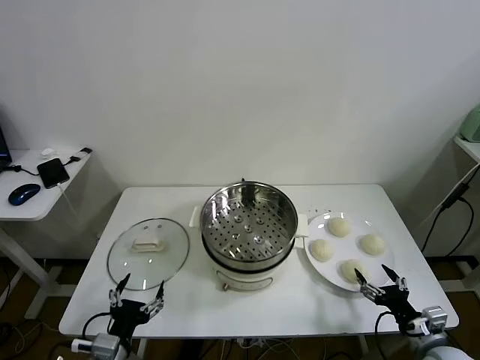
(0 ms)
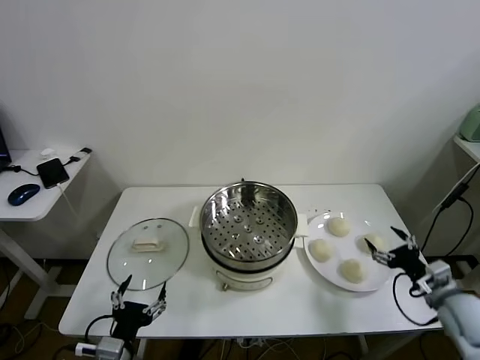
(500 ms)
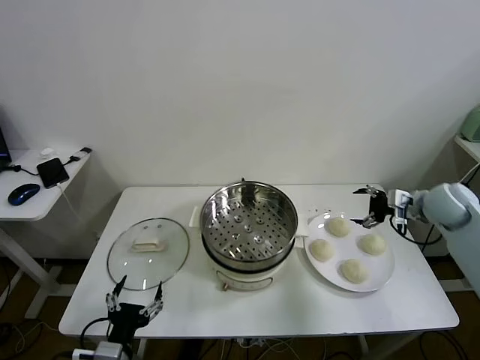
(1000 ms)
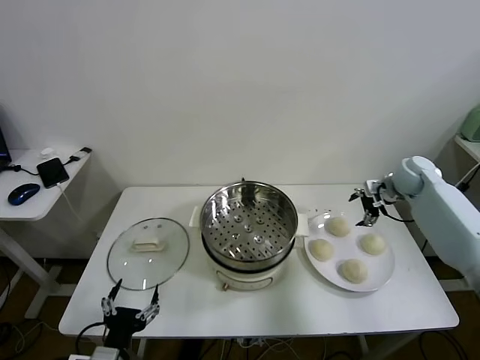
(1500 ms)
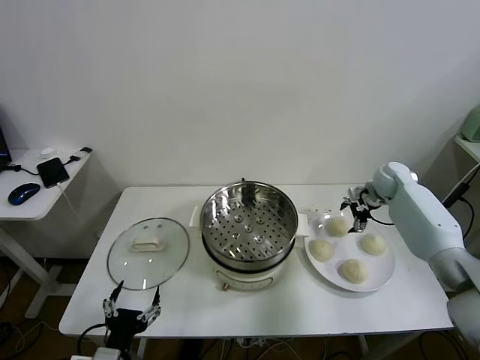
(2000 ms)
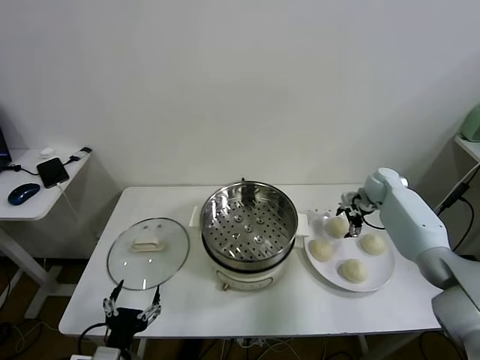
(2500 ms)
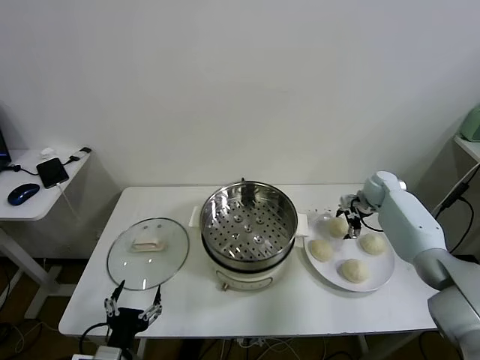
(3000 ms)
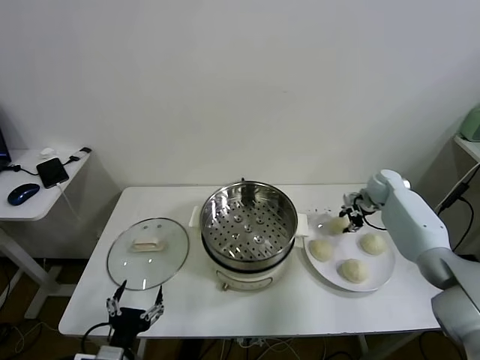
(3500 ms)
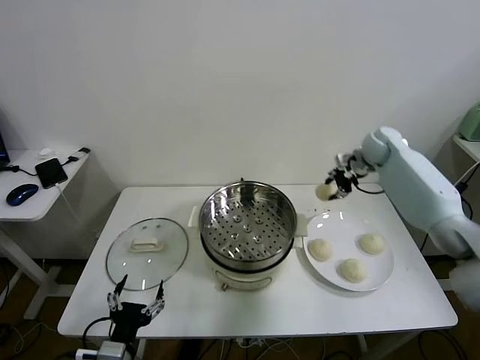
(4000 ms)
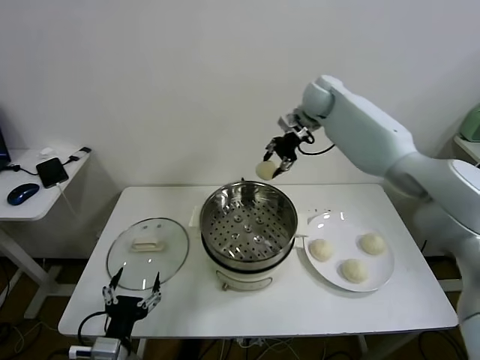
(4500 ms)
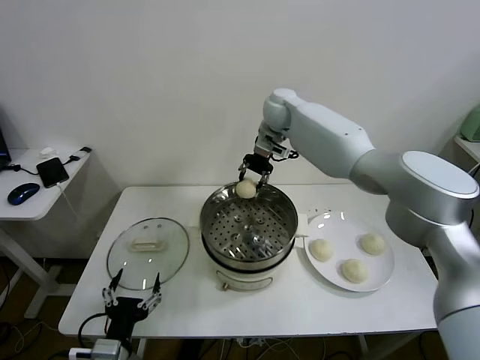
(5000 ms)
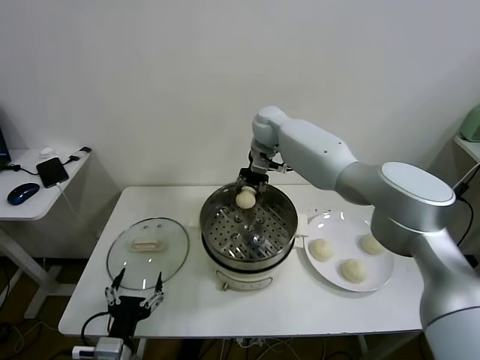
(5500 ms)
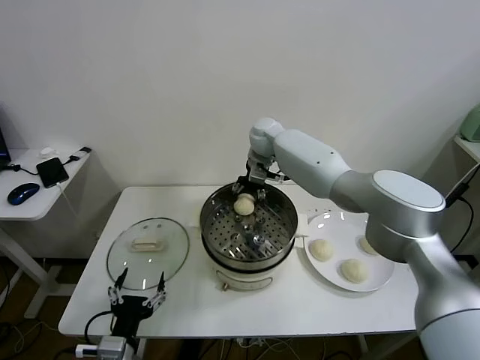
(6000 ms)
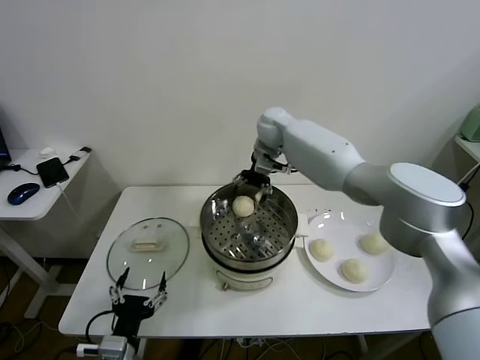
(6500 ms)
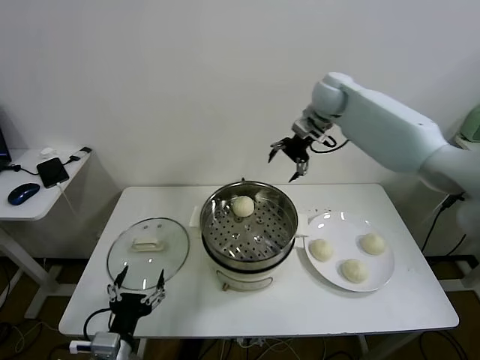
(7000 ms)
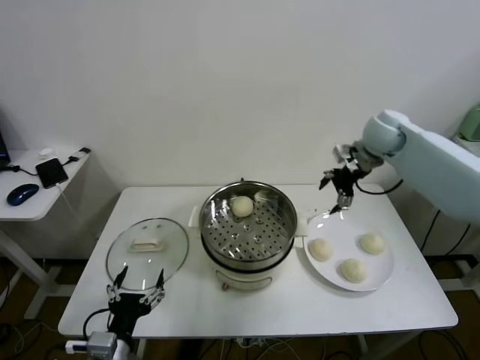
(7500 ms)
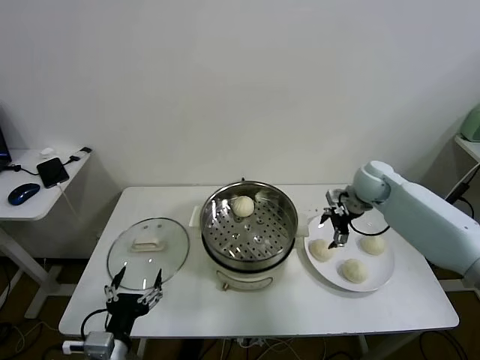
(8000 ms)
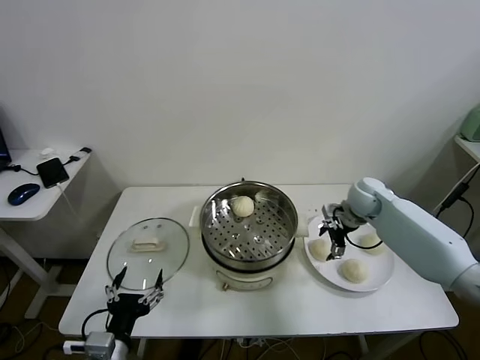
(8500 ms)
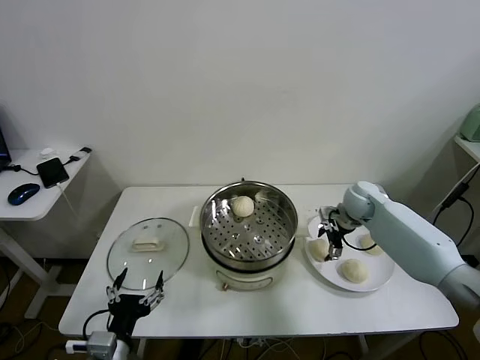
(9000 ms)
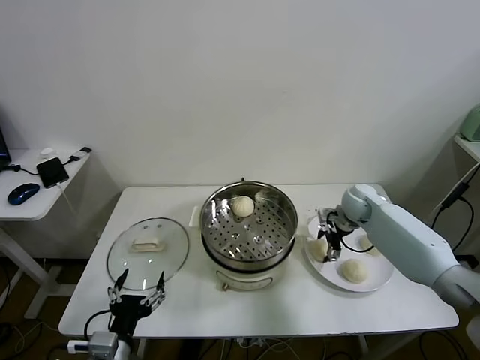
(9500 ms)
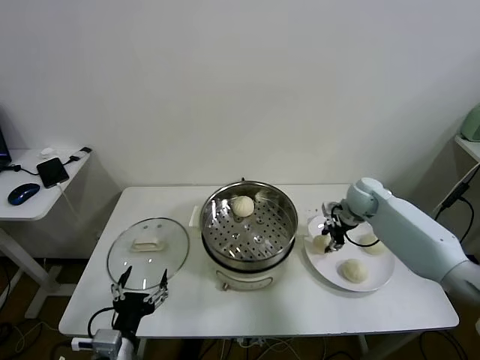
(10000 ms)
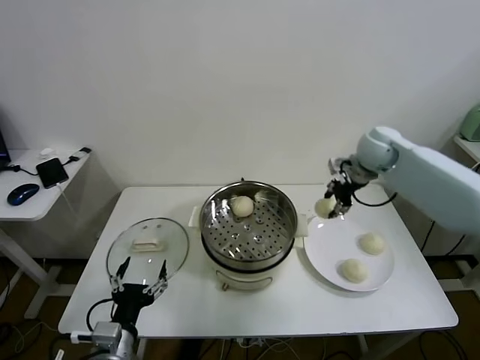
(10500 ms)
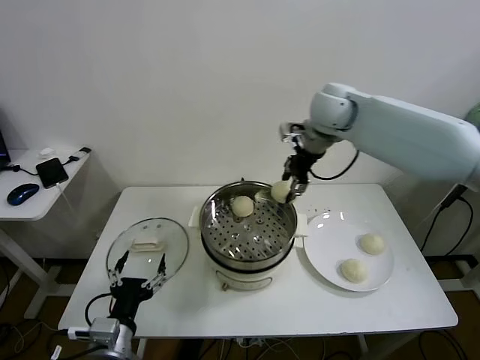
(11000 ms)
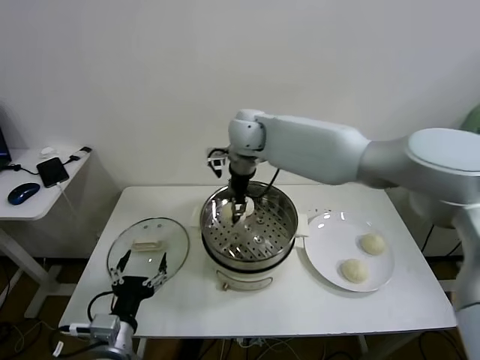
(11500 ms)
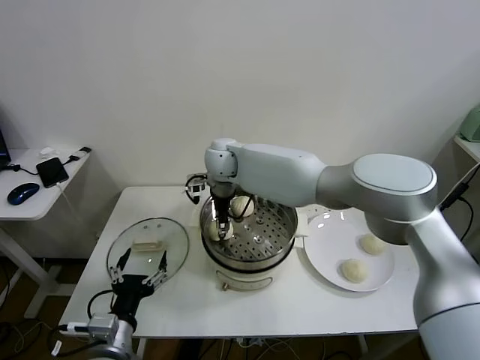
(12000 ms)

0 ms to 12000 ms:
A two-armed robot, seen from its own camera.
Task of the whole recording: take steamed baozi put them in steamer.
Step, 0 ms to 3000 ms: Grasp the baozi in the plate with right gripper.
Step, 3500 ms to 6000 ms: Place the baozi on the steamer with right gripper.
Step, 6500 ms to 9500 ms: Grasp the baozi in the plate with right gripper.
2000 ms to 4000 ms: The right gripper is displaced upward and to the left by roughly 15 cm, and closes.
4000 ms to 6000 ms: The right gripper heads to the left, covering some 25 cm, and opens.
6000 ms to 8000 ms: The right gripper is displaced to the right and backward by approximately 30 cm, and opens.
8000 ms to 10000 ms: The right gripper closes.
10000 ms to 12000 ms: The right gripper goes about 35 cm to the left.

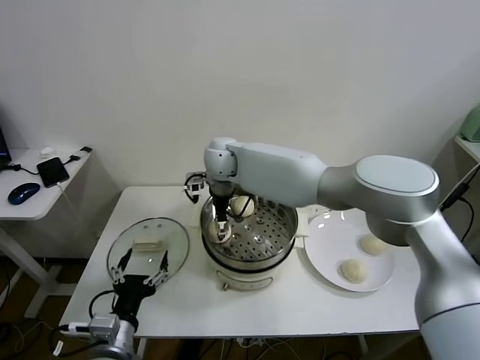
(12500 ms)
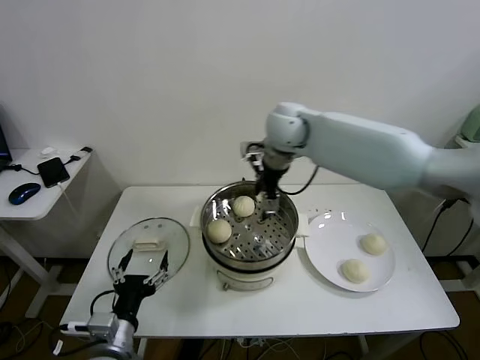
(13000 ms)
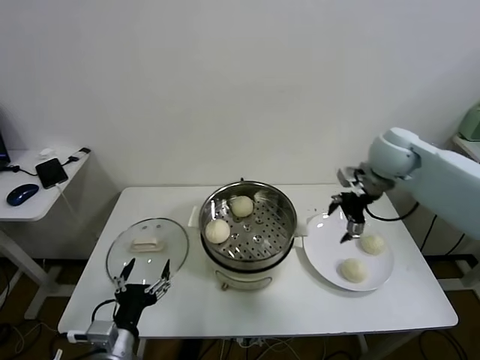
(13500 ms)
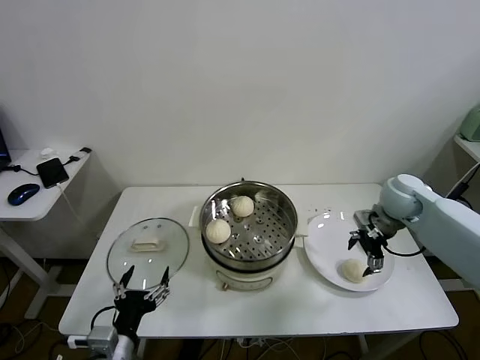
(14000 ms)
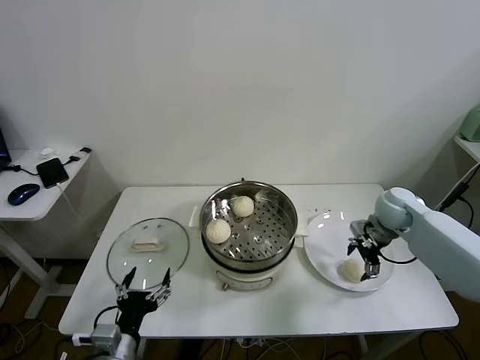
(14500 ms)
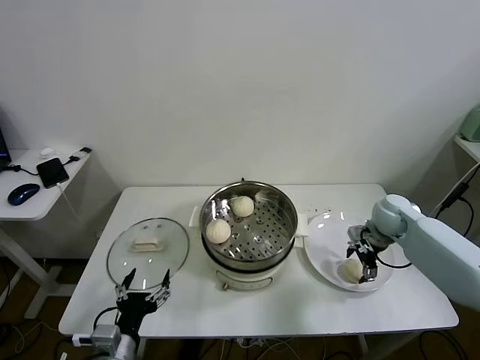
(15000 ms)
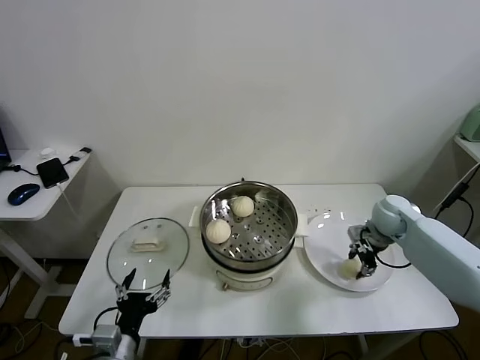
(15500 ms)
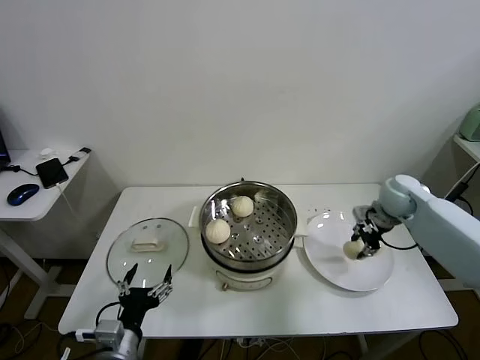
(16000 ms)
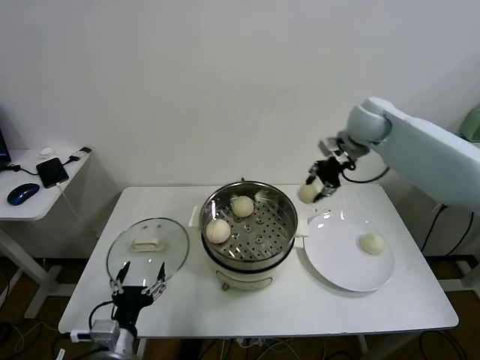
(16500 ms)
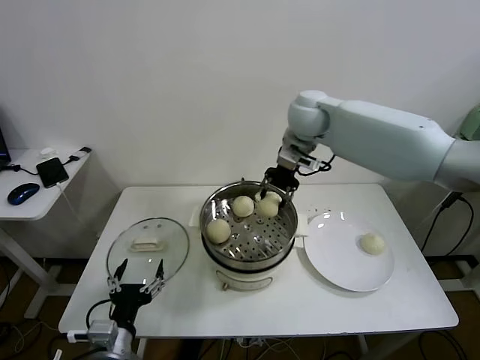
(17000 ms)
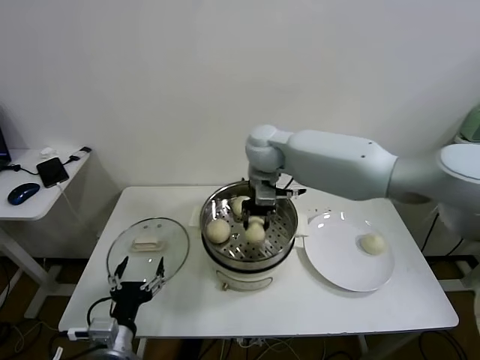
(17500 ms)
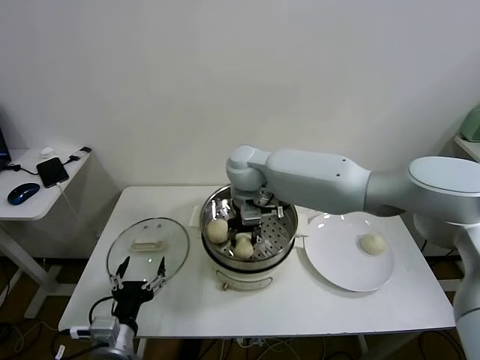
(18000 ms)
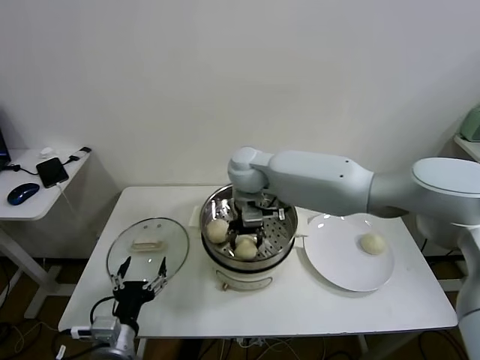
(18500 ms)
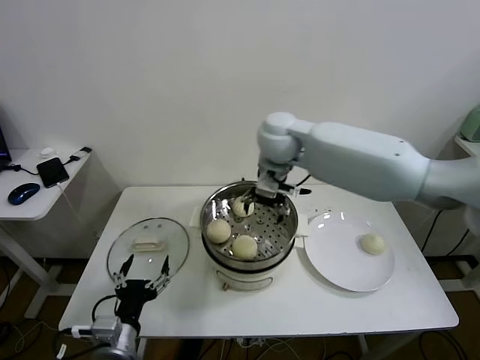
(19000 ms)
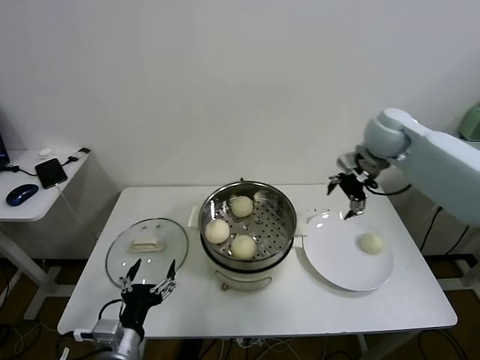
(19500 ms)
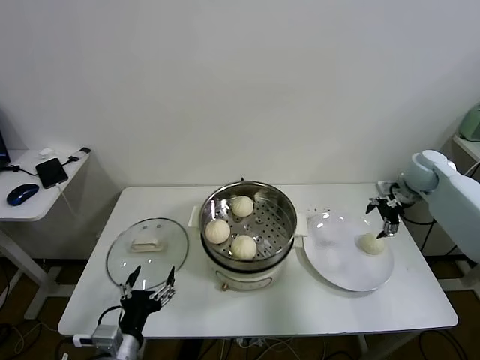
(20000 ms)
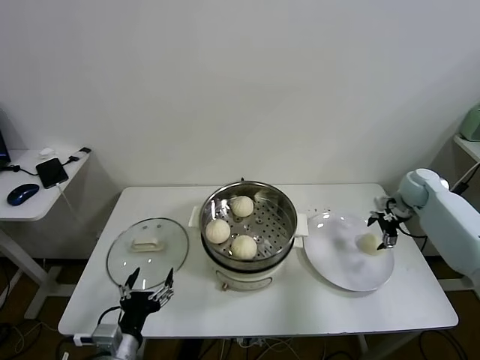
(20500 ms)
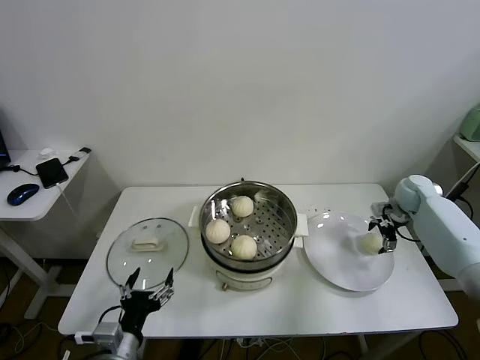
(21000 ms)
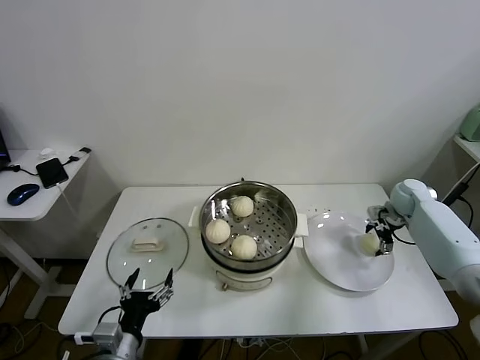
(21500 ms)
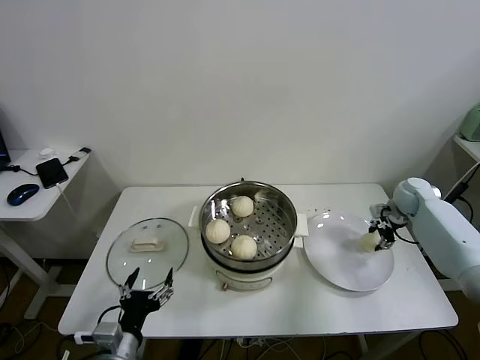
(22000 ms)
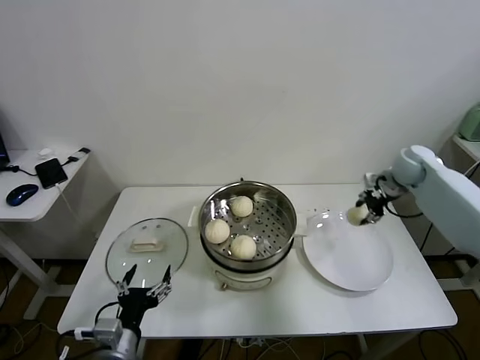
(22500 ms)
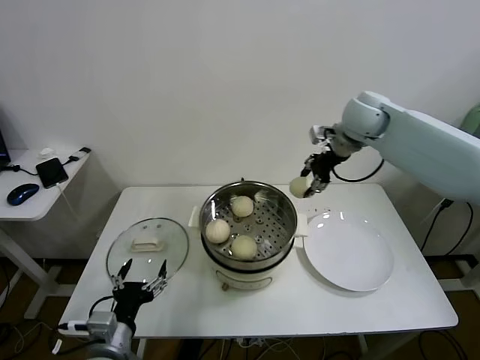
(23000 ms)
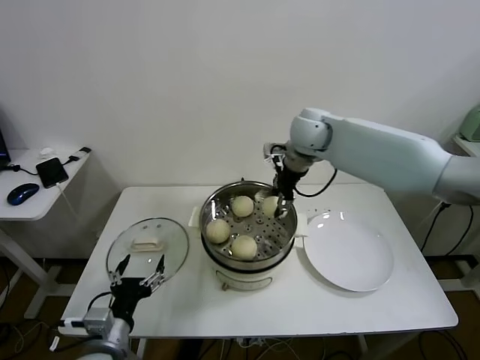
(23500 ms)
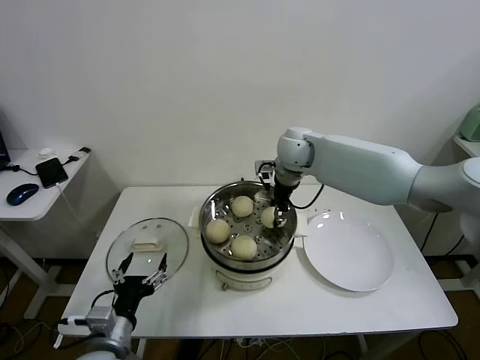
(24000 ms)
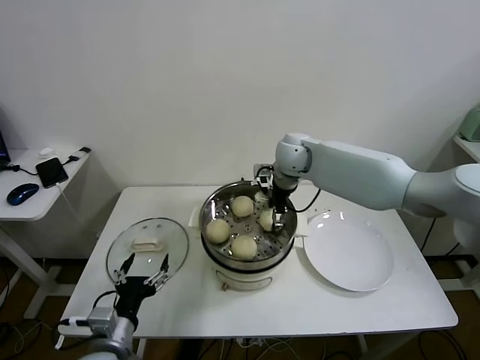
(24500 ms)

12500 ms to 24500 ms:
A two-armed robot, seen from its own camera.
Task of the whole recording: take steamed baozi put them in steamer.
Step, 12500 ms to 15500 ms: Grasp the baozi in the plate with right gripper.
Step, 16000 ms to 18500 ms: Place the baozi on the steamer with right gripper.
Step, 19000 ms to 21500 ms: Grasp the baozi in the plate with right gripper.
12500 ms to 14500 ms: The right gripper travels to the right by approximately 40 cm.
14500 ms to 16500 ms: The right gripper goes some 25 cm upward, to the left and forward, and closes.
16500 ms to 18500 ms: The right gripper moves to the left, some 25 cm, and opens its fingers.
18500 ms to 20500 ms: The right gripper is displaced to the right by approximately 50 cm, and opens up.
20500 ms to 22500 ms: The right gripper heads upward, covering some 5 cm, and closes up.
22500 ms to 24500 ms: The right gripper moves to the left, some 30 cm, and opens its fingers.

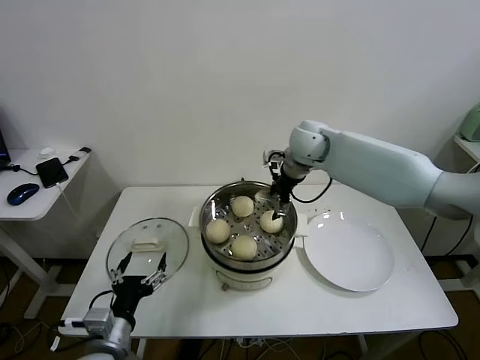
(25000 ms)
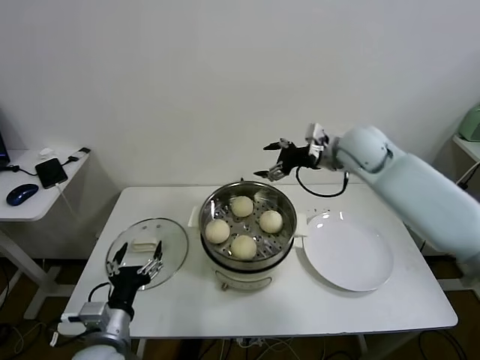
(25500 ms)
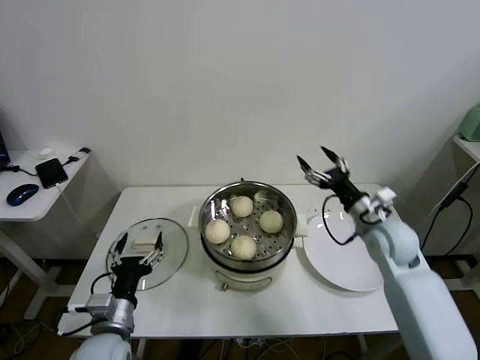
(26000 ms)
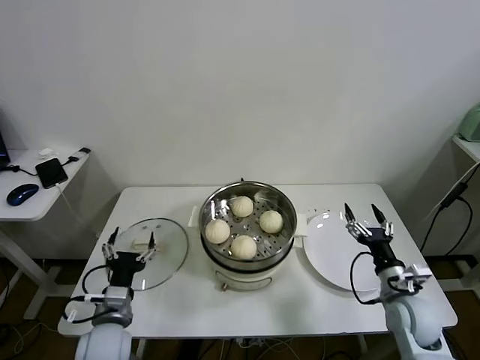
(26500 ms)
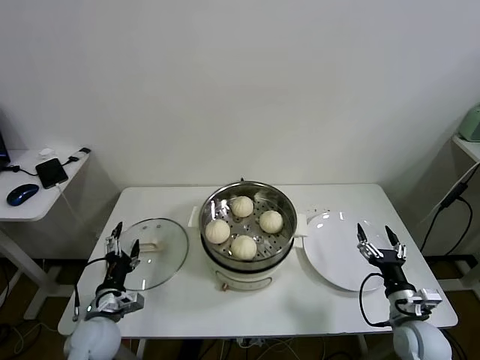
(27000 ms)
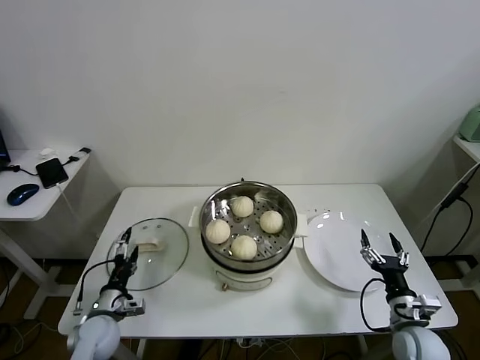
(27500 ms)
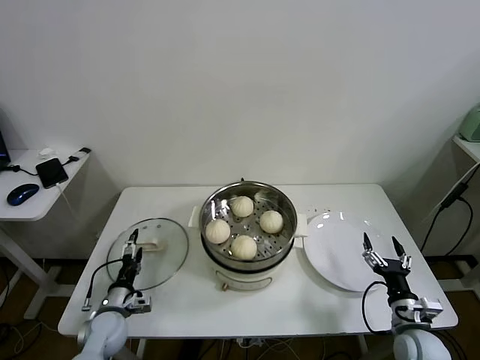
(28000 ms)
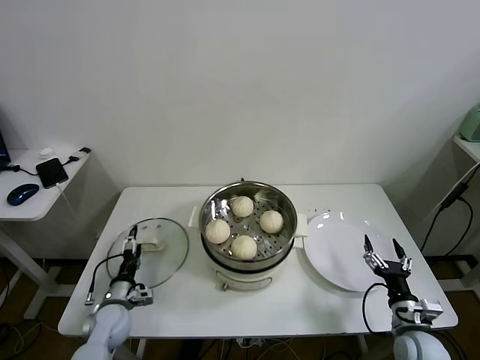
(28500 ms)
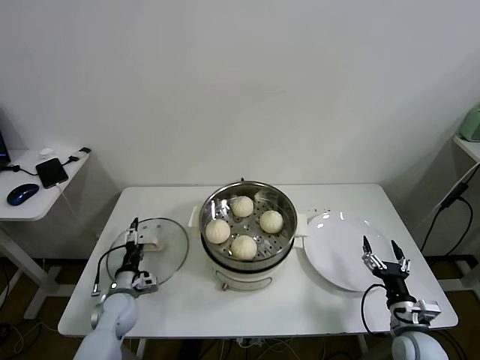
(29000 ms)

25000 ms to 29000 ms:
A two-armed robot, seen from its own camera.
Task of the whole recording: take steamed baozi put them in steamer.
25000 ms to 27000 ms: The left gripper moves downward, forward and to the left, roughly 15 cm. Meanwhile the right gripper shifts about 50 cm backward, downward and to the right.
27000 ms to 29000 ms: The left gripper is displaced forward and downward by roughly 10 cm.
